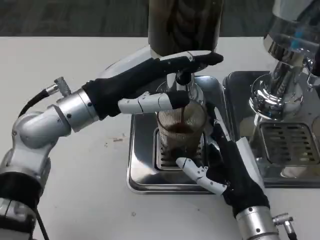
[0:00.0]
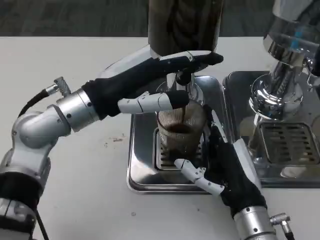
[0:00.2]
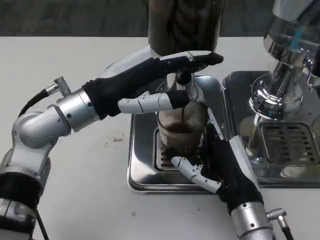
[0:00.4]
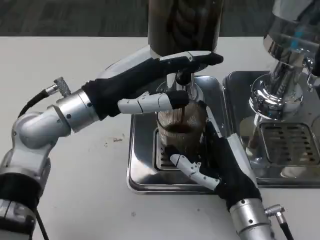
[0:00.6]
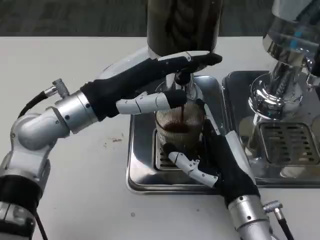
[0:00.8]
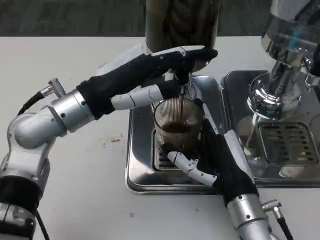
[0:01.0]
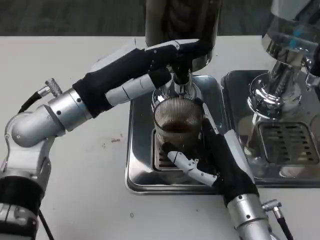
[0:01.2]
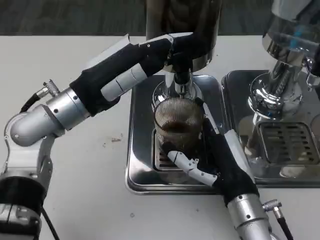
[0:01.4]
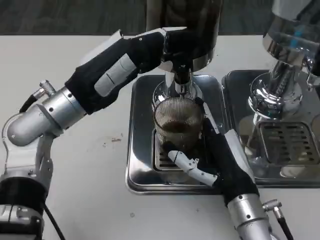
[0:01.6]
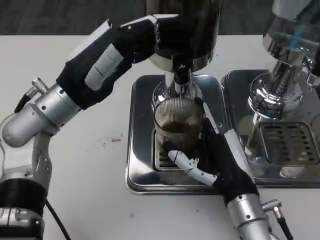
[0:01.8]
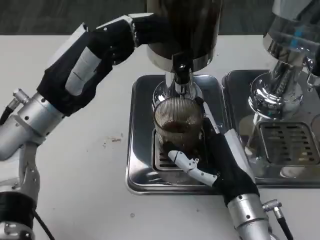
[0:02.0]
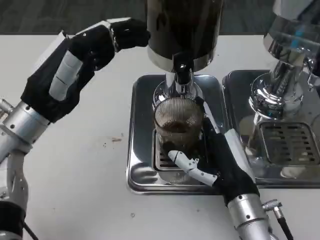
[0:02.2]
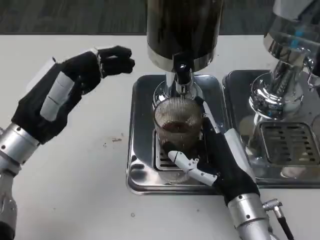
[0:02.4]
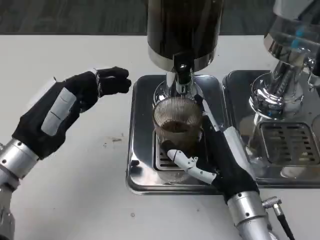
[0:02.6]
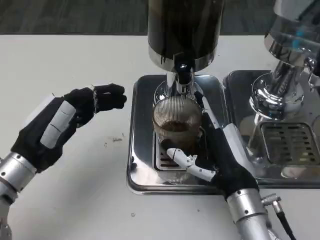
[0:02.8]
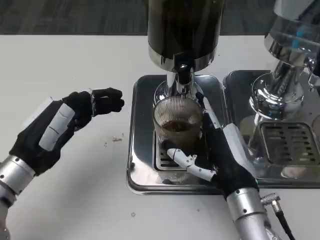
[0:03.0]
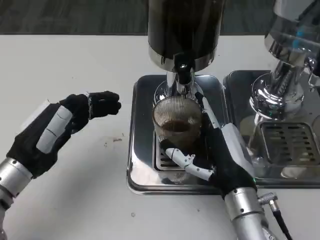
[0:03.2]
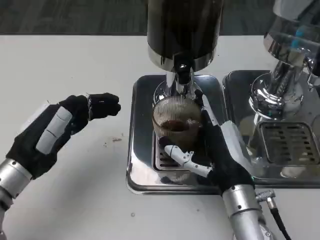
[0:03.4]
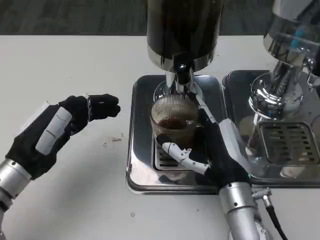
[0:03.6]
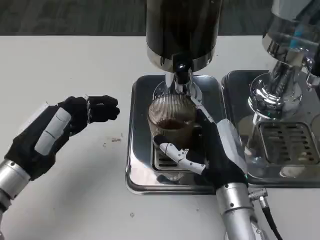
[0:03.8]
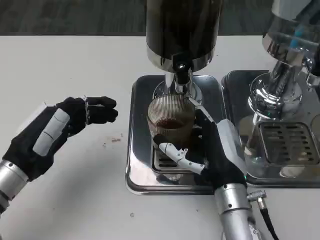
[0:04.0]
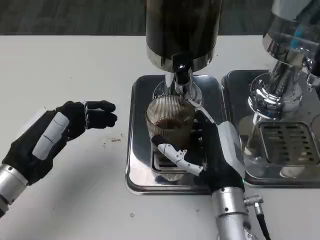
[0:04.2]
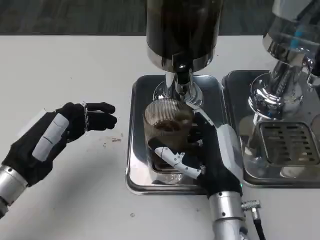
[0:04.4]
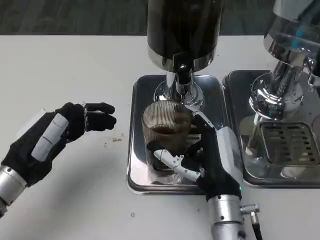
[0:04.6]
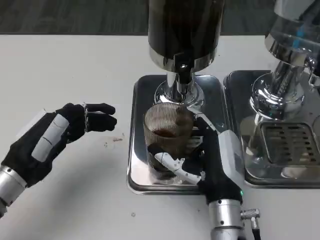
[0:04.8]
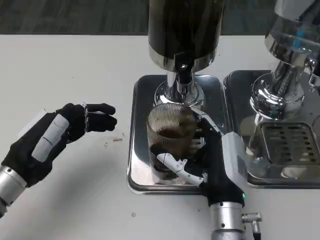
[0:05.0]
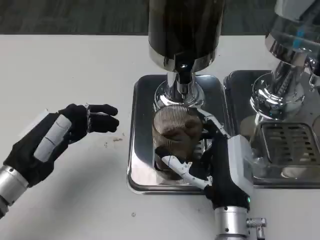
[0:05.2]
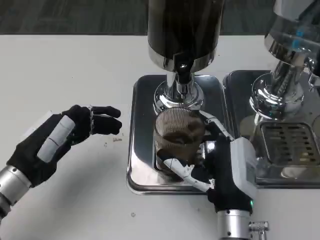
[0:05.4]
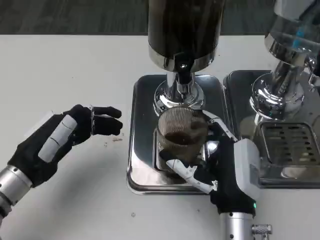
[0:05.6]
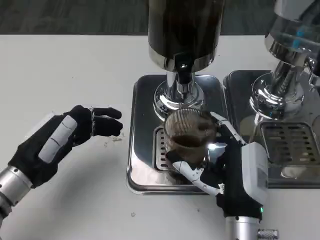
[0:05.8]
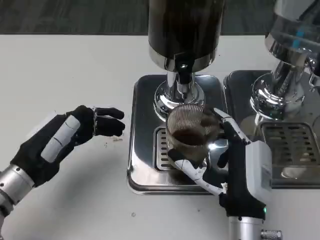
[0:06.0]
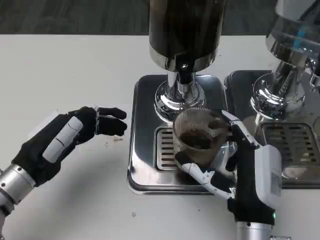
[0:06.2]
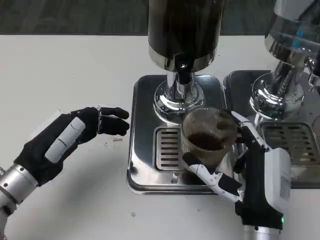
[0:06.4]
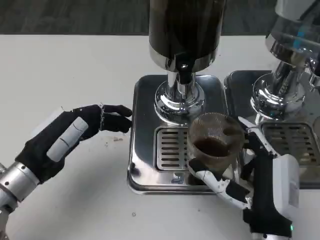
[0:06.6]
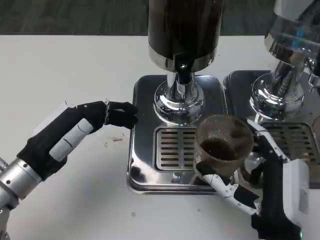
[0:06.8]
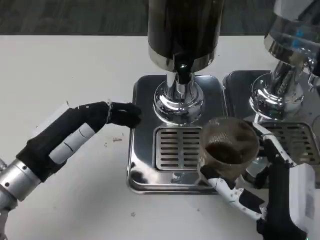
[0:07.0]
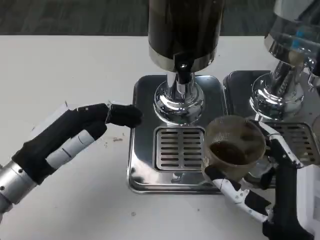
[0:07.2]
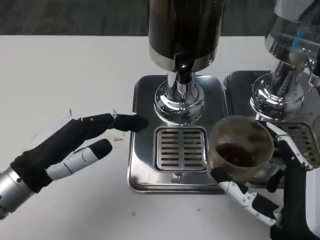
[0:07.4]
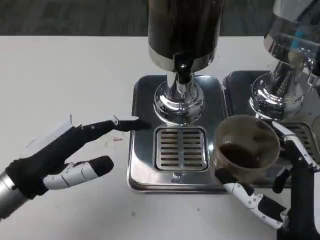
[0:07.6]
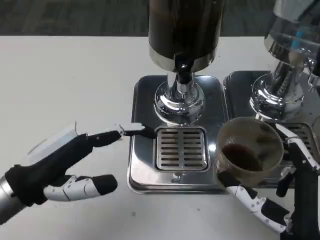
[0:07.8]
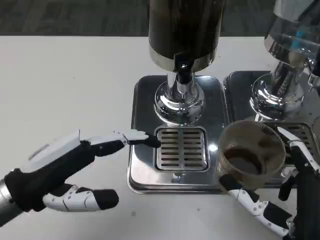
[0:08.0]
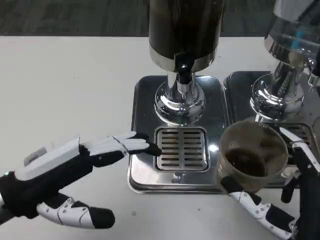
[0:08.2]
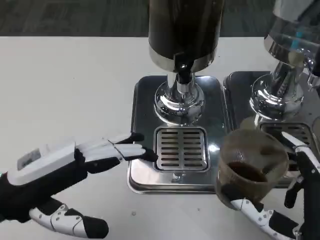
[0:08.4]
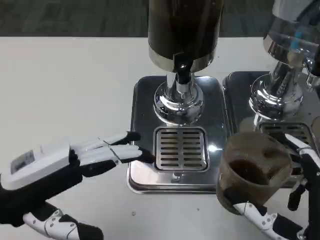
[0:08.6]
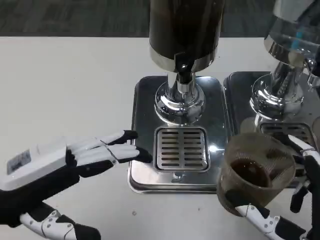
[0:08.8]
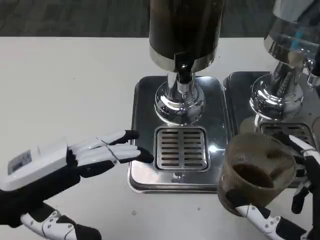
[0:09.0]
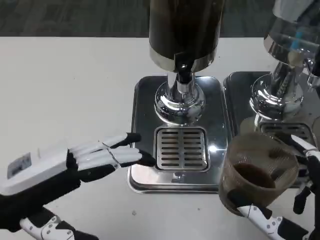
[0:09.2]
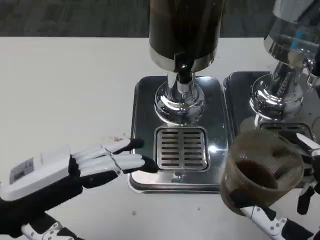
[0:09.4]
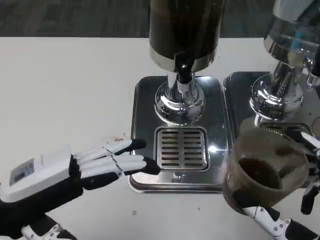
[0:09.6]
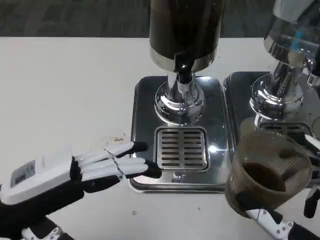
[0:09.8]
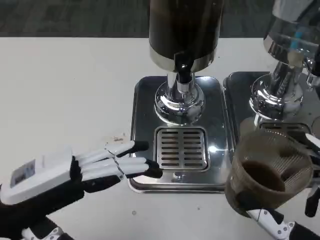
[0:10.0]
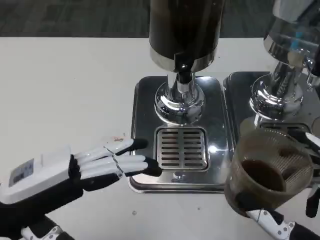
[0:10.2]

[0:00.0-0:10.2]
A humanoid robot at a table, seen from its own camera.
Task of the whole recording: Grasp the cup under the faucet to collect the drink, then remove the cup.
0:01.4 to 0:03.0: The left hand is displaced downward, to the left and backward by approximately 15 cm.
0:05.8 to 0:07.2: The right hand heads backward, covering some 5 cm.
0:07.2 to 0:08.8: The left hand shifts by approximately 5 cm; the right hand shifts by about 5 cm.
0:08.8 to 0:10.2: The hands make only small movements.

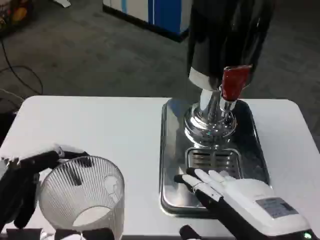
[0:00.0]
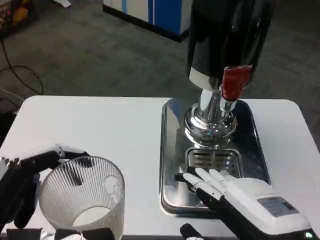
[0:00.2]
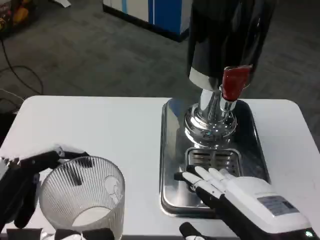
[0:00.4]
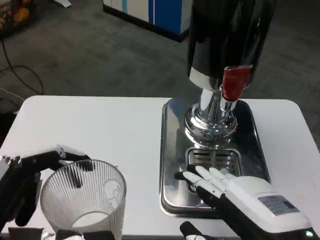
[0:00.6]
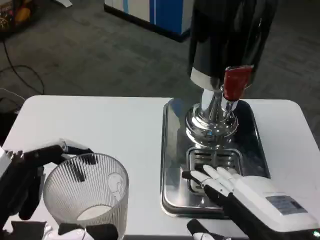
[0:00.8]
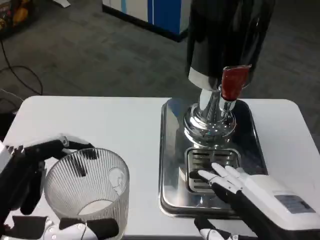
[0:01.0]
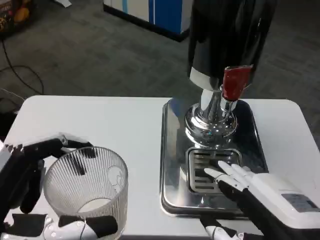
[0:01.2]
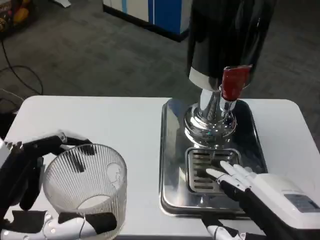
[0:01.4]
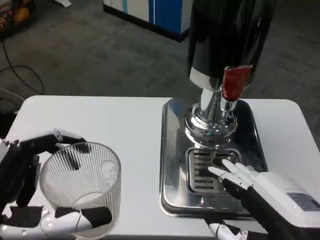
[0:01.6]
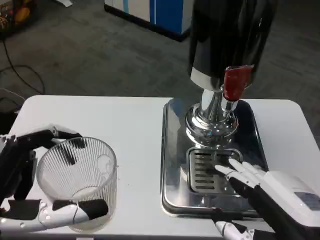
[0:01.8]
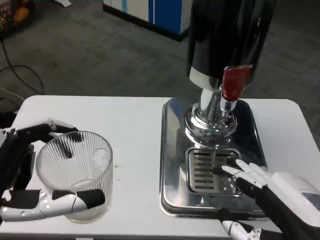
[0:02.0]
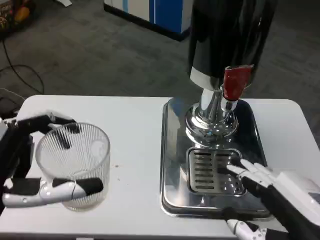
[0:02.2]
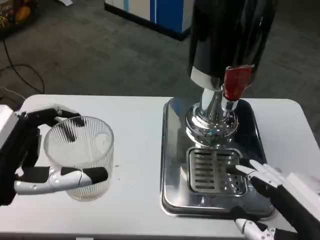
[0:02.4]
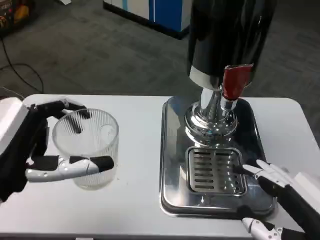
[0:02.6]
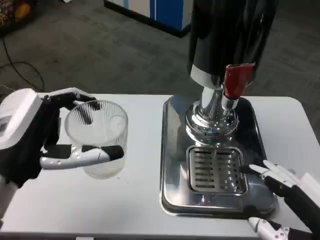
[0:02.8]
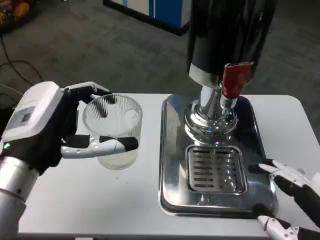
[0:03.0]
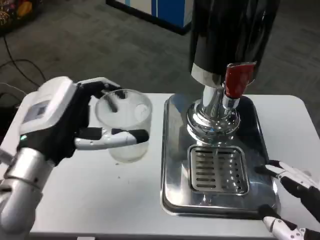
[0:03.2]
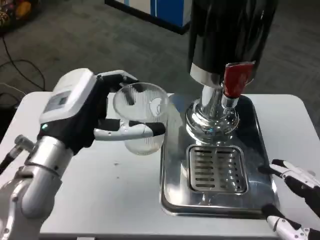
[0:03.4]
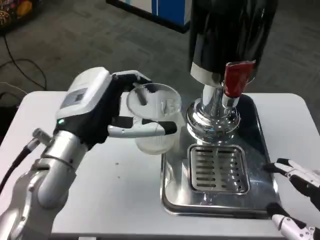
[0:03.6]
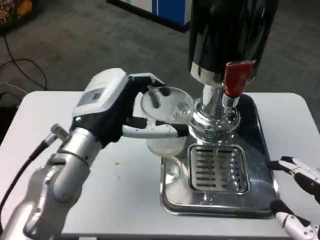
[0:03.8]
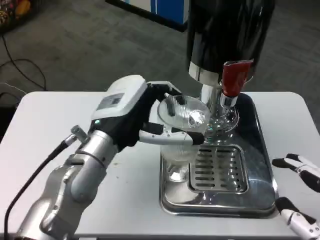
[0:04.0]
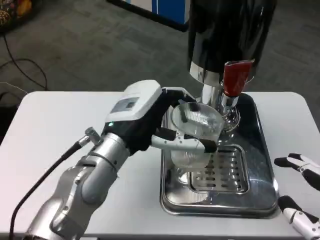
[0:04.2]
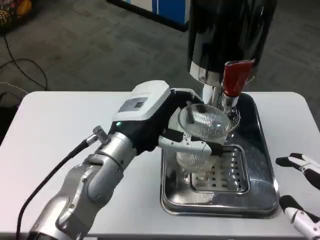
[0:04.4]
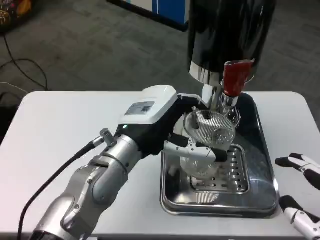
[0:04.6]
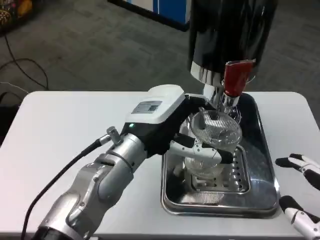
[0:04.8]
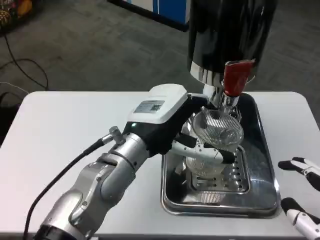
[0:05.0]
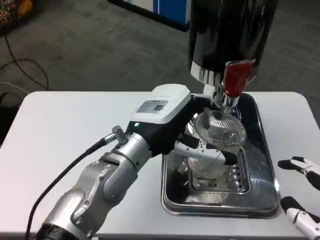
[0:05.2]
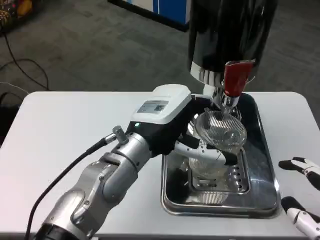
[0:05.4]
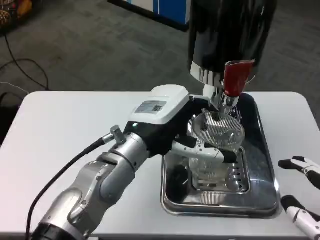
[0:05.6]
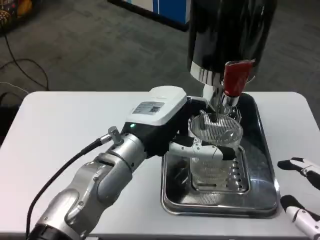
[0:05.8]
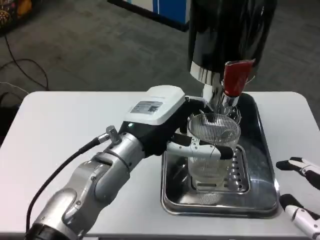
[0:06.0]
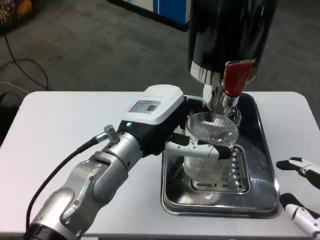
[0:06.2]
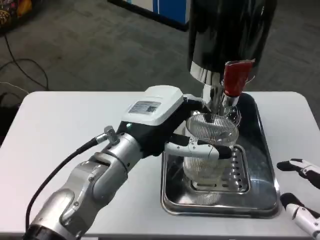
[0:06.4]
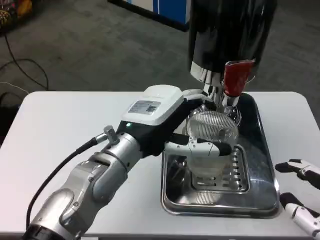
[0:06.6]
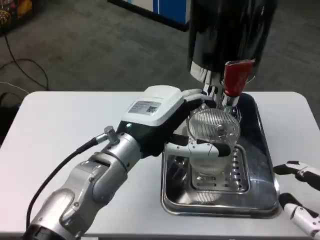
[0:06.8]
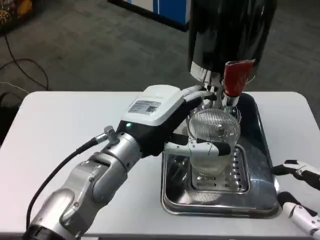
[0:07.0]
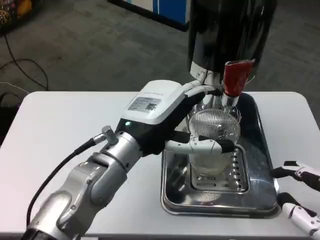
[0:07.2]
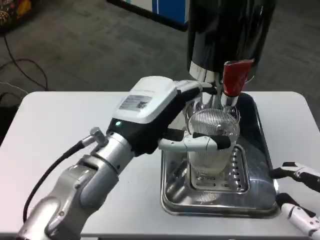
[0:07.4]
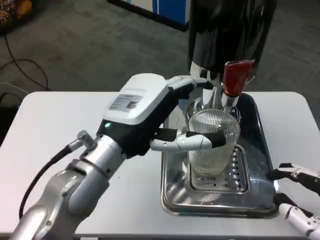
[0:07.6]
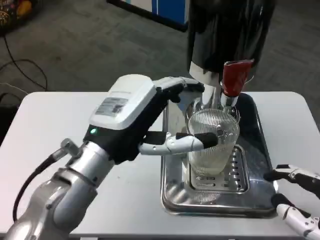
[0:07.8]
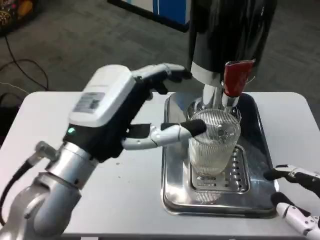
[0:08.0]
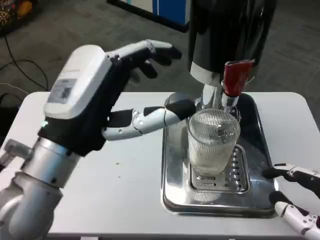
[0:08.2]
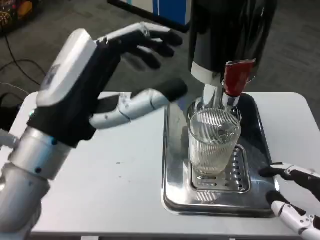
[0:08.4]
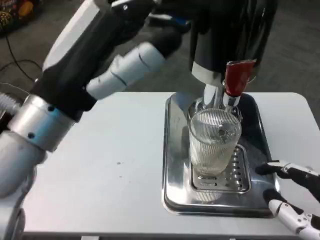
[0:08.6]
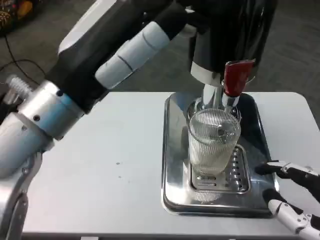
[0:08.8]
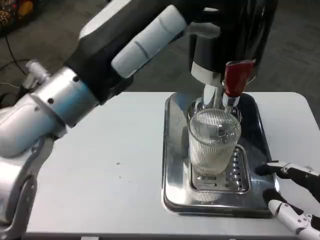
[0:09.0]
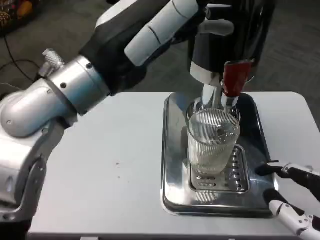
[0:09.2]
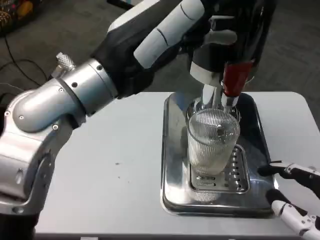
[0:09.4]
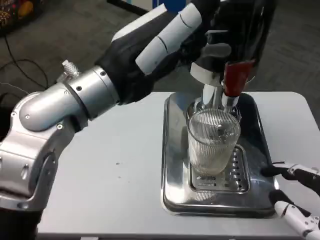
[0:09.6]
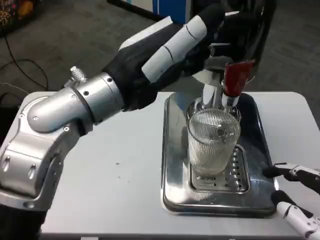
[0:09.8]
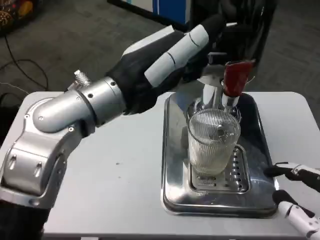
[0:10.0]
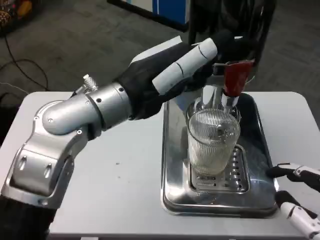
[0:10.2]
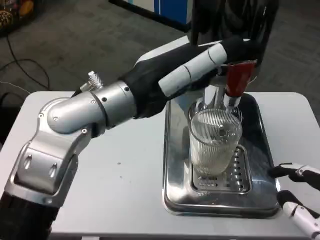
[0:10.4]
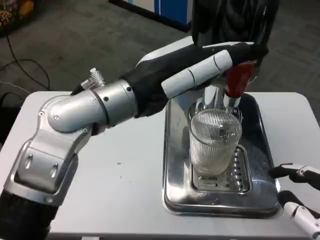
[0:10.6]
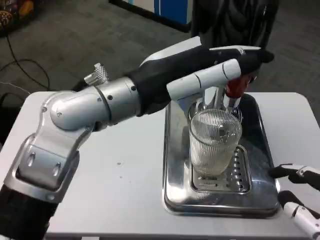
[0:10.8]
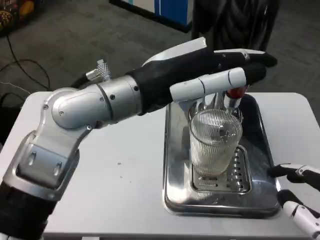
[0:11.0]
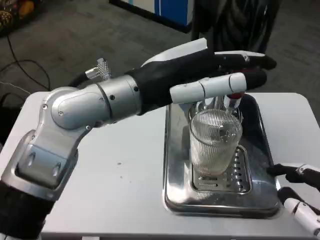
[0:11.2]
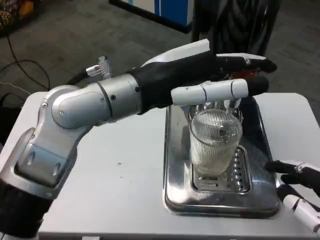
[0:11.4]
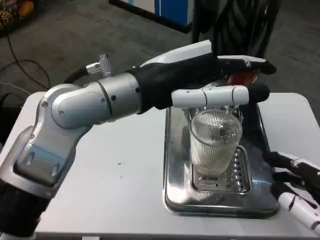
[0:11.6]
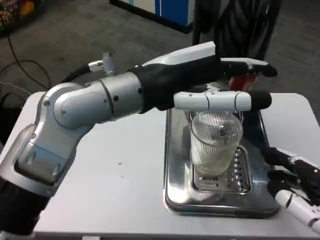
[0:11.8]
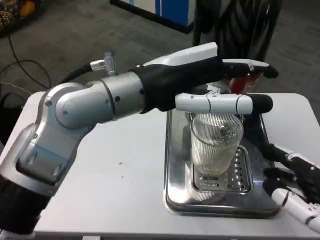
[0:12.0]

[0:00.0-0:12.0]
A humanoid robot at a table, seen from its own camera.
Task of the whole recording: Grasp the cup under the faucet to collect the drink, then remove the cup.
0:01.6 to 0:03.0: The left hand travels forward by roughly 15 cm.
0:03.0 to 0:04.4: The left hand moves to the right and forward, some 10 cm.
0:04.4 to 0:06.0: The hands stay close to where they were, moving slightly.
0:07.6 to 0:09.0: The left hand is displaced upward by roughly 10 cm.
0:09.0 to 0:10.4: The left hand shifts by roughly 5 cm.
